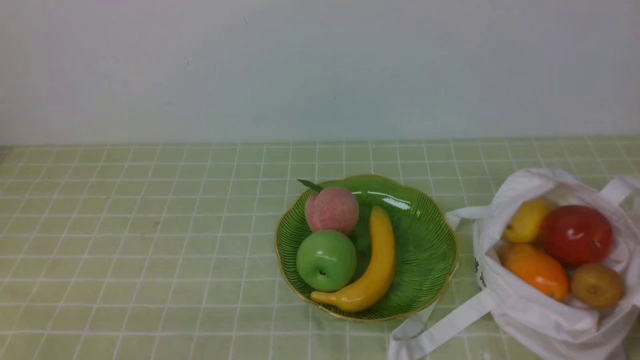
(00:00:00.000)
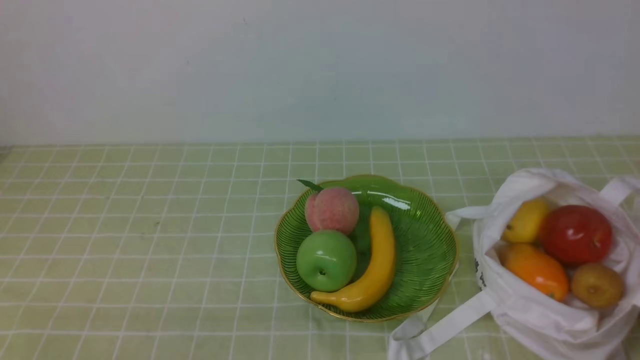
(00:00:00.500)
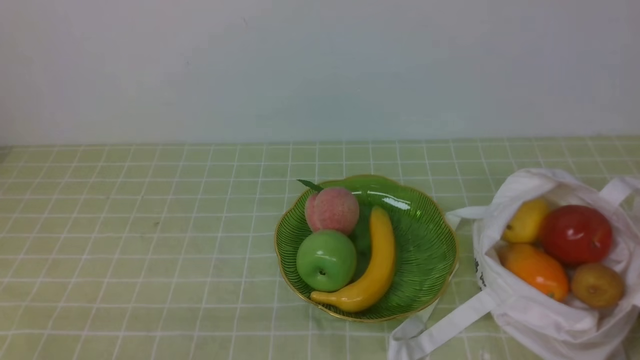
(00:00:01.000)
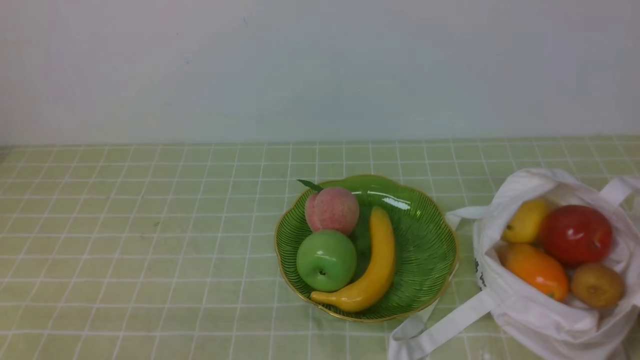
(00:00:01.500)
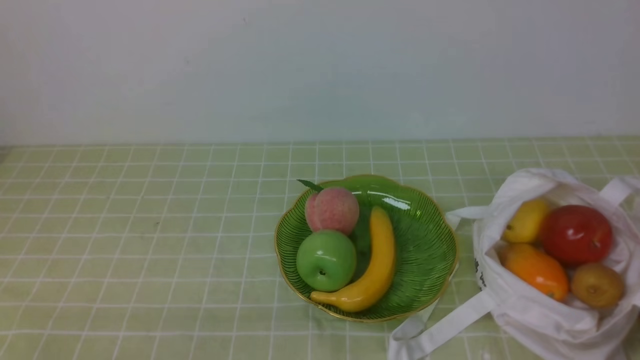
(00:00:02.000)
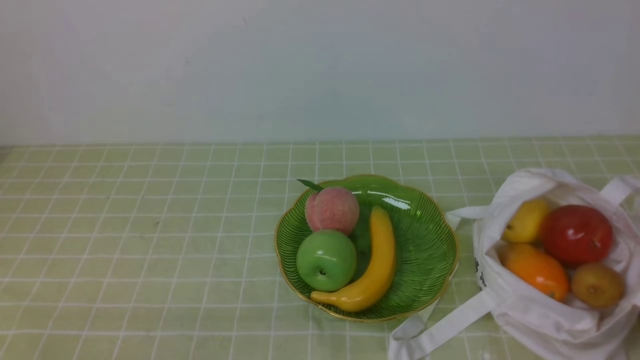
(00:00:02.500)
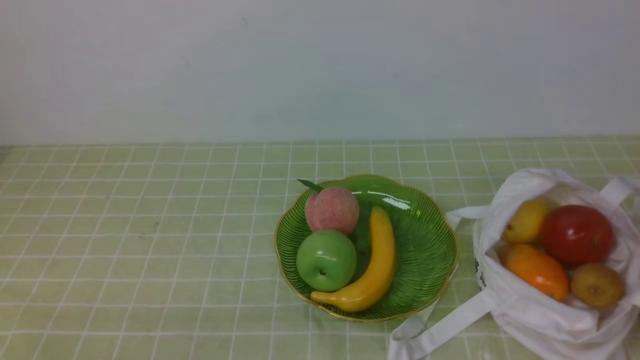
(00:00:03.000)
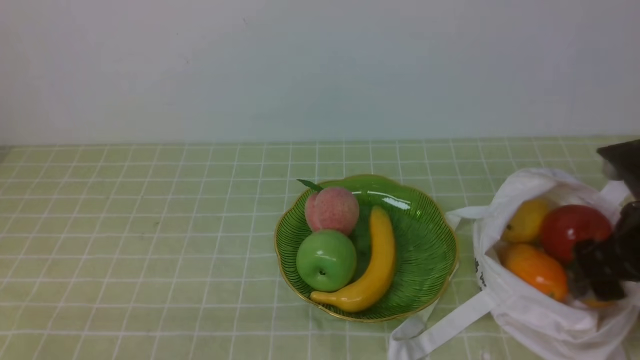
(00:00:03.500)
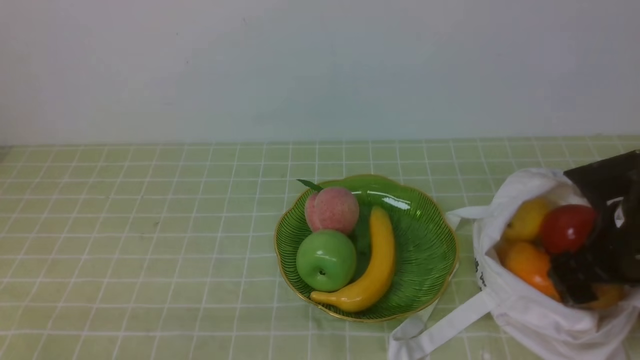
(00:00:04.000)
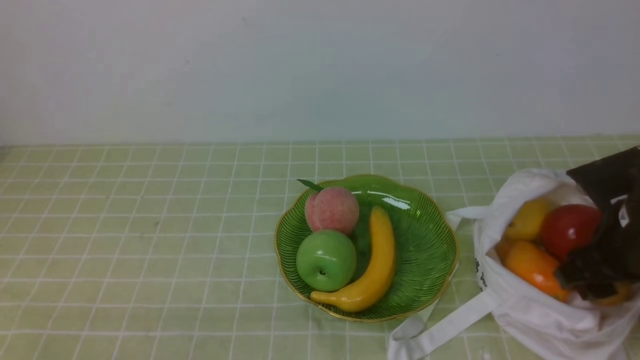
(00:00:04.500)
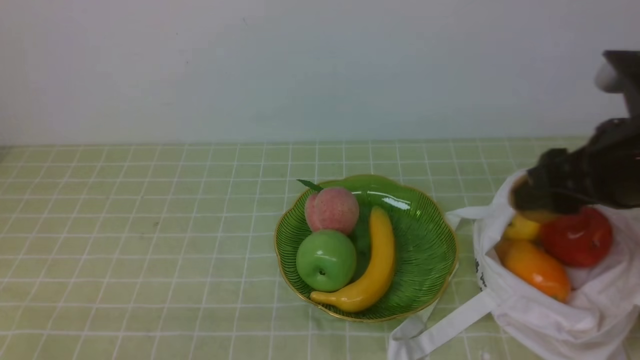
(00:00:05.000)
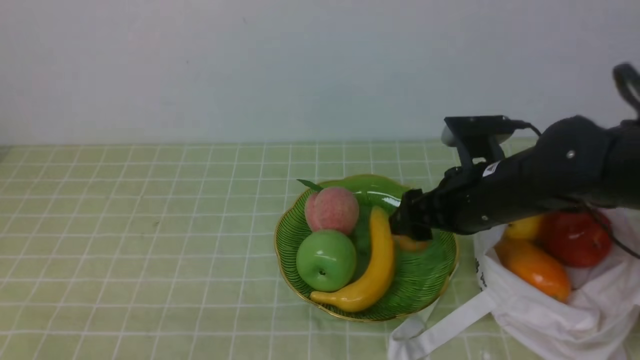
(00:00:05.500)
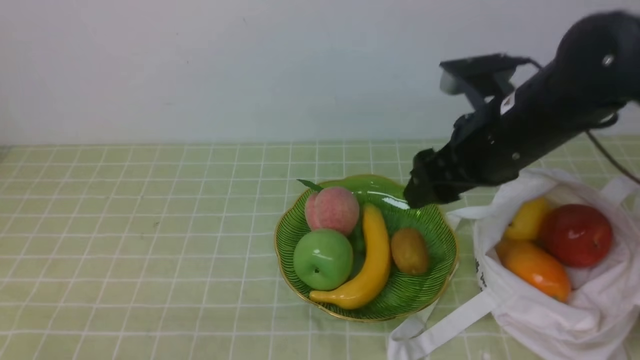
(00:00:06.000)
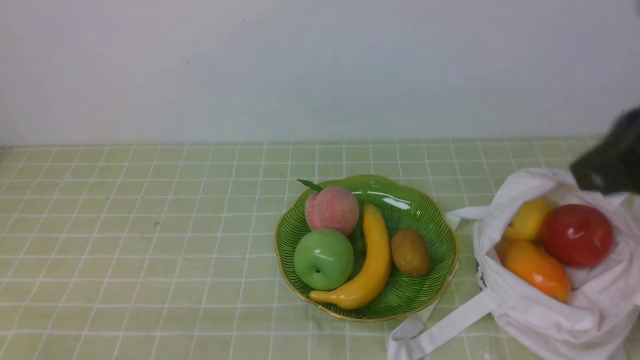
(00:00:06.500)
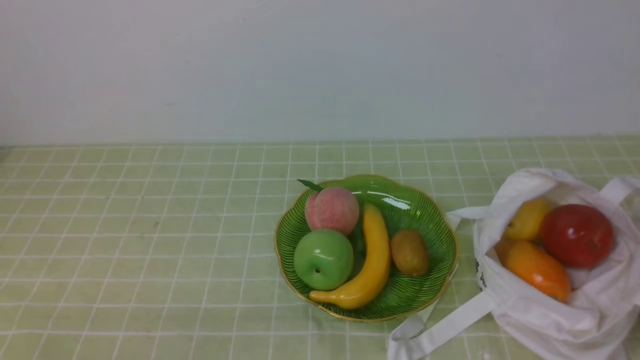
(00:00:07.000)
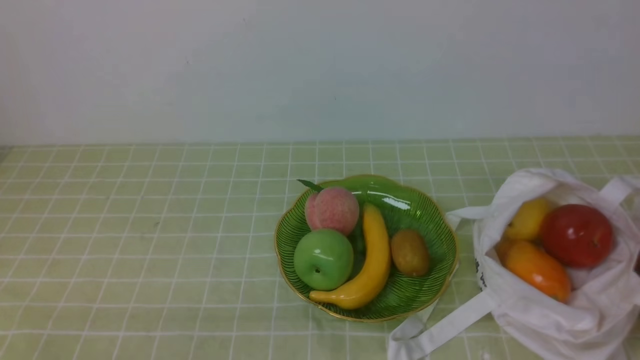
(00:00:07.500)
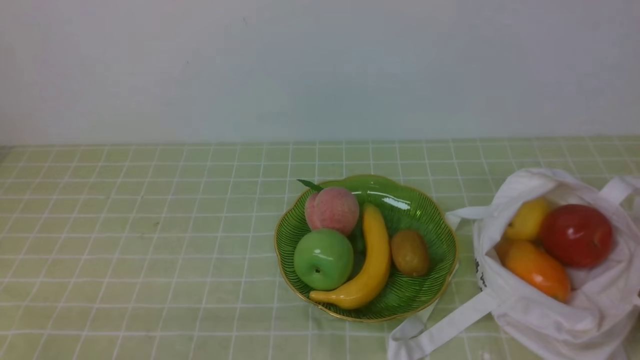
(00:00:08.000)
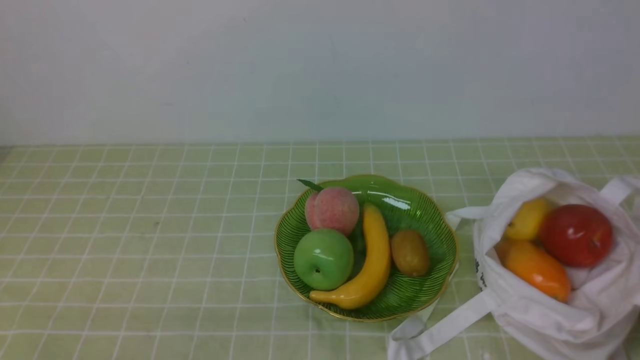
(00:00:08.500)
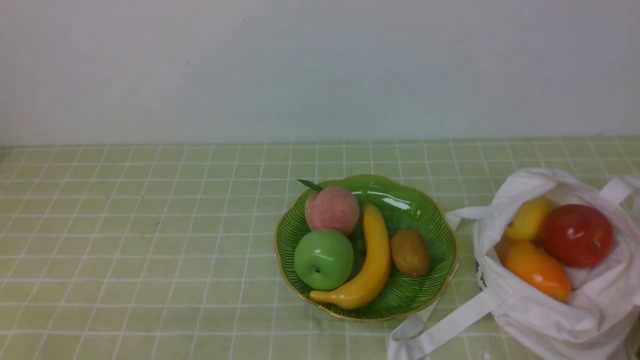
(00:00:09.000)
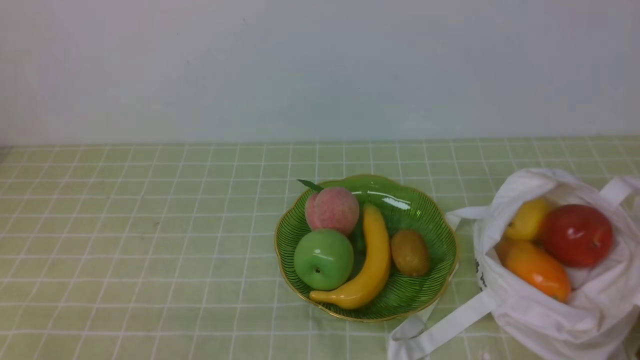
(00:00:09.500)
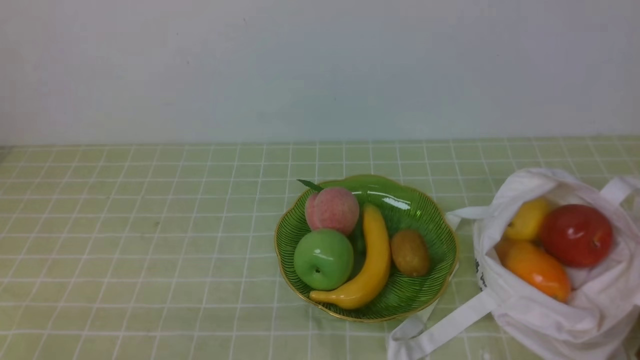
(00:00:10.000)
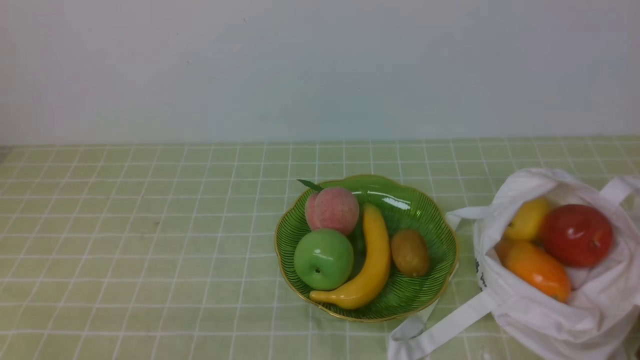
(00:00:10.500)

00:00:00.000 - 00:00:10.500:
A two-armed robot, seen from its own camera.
Step, 00:00:00.000 - 00:00:04.500: use the right arm to grab a kiwi from the bag.
Step, 00:00:05.000 - 00:00:05.500: use the right arm to put the kiwi into the empty plate on the left.
00:00:02.000 - 00:00:04.000: The right gripper shifts about 20 cm forward, and opens its fingers.
00:00:04.000 - 00:00:06.500: The right gripper goes up and down, roughly 20 cm each way, reversing 2 times, and closes its fingers.
00:00:06.500 - 00:00:08.500: The right gripper heads downward and backward, covering some 25 cm.
